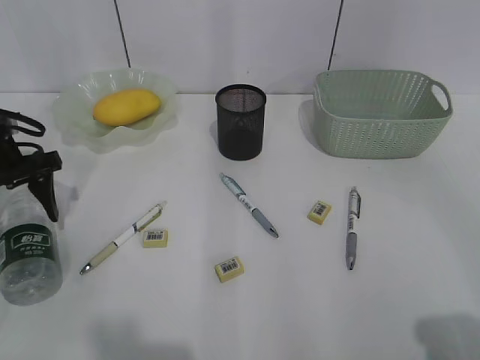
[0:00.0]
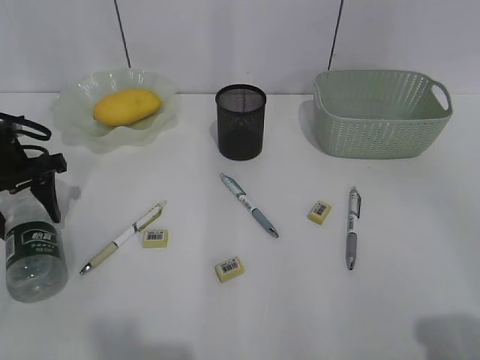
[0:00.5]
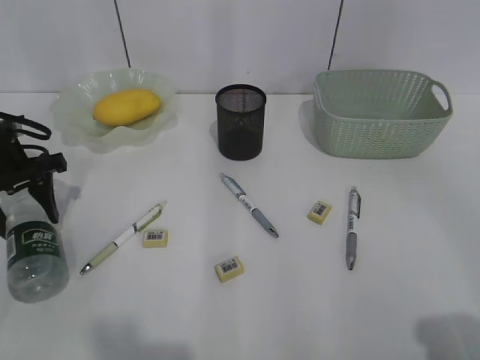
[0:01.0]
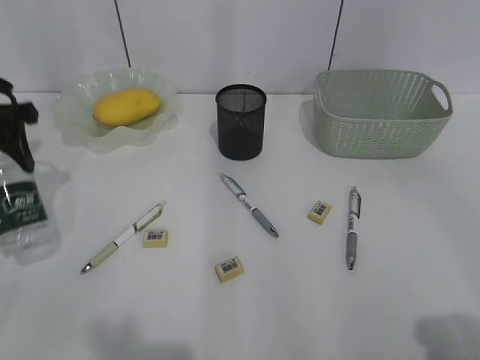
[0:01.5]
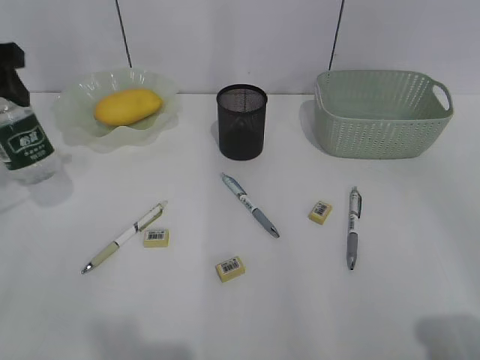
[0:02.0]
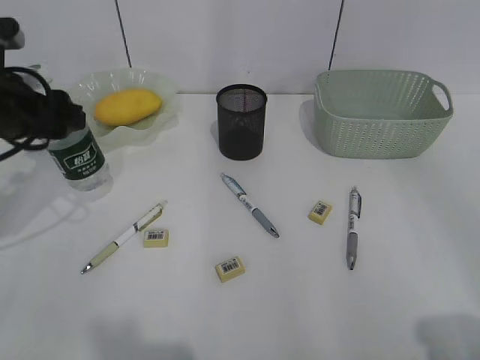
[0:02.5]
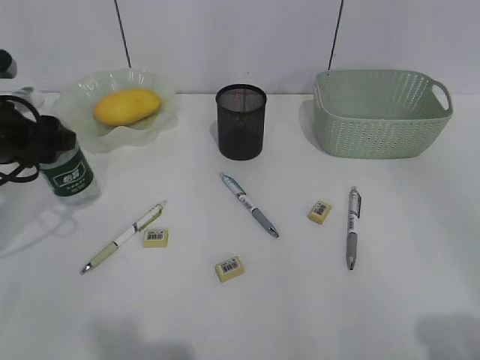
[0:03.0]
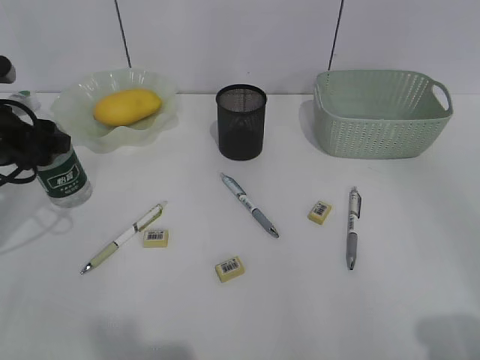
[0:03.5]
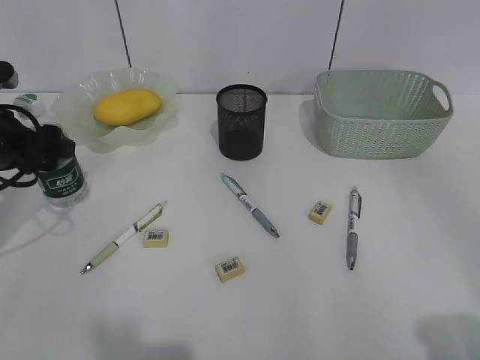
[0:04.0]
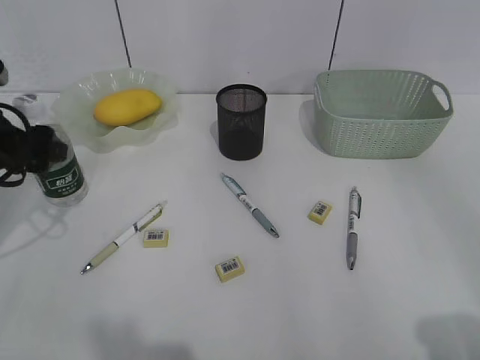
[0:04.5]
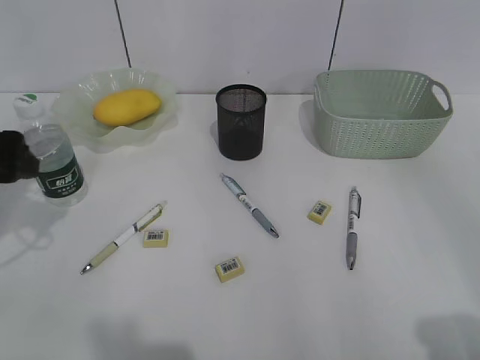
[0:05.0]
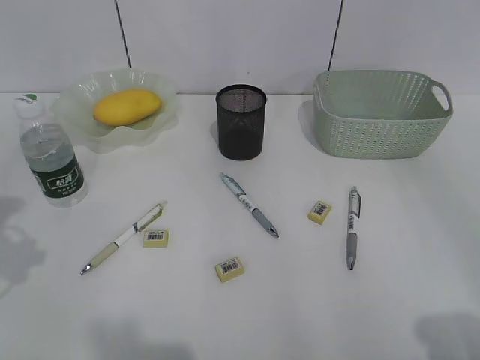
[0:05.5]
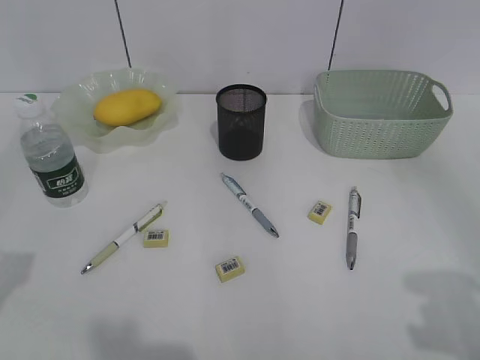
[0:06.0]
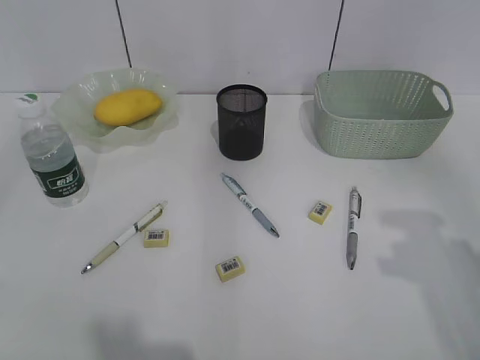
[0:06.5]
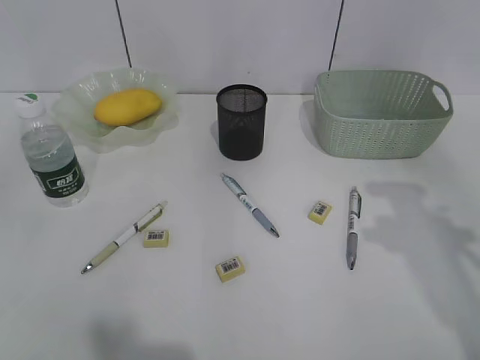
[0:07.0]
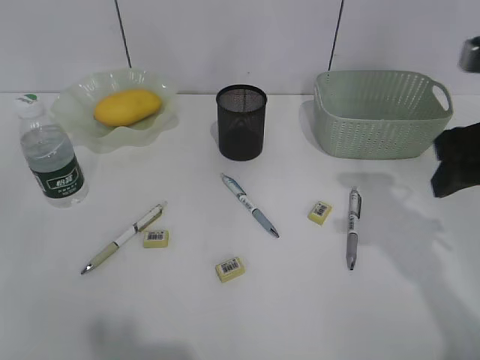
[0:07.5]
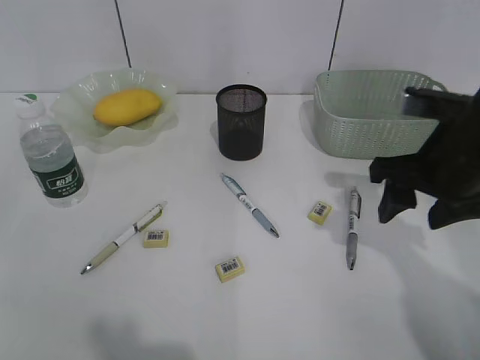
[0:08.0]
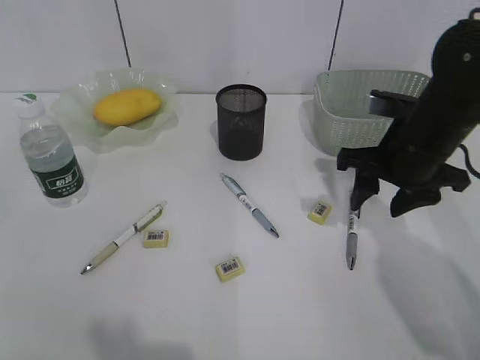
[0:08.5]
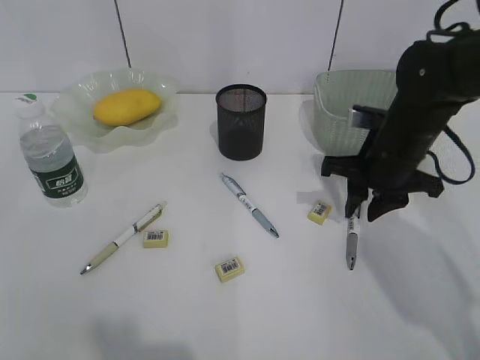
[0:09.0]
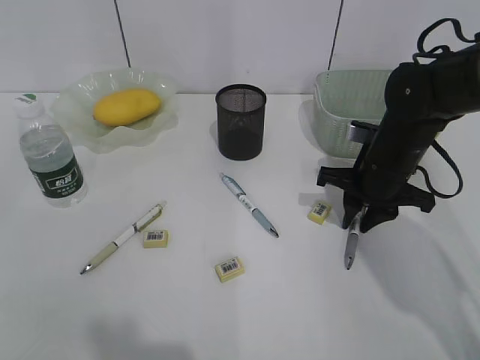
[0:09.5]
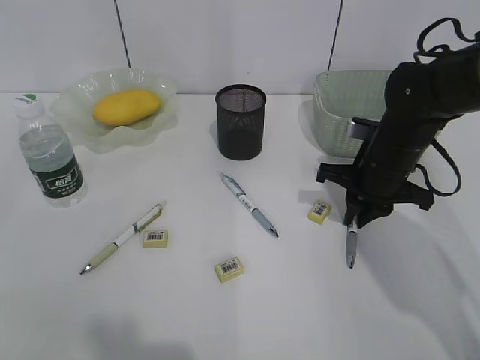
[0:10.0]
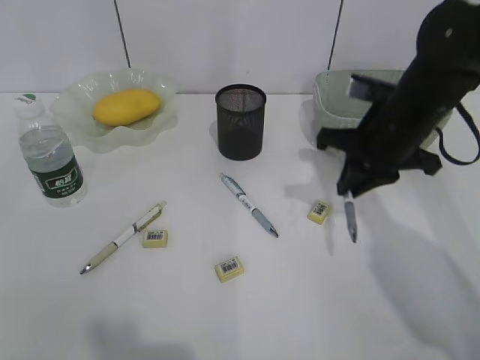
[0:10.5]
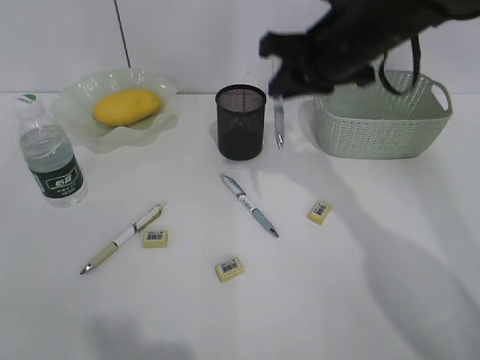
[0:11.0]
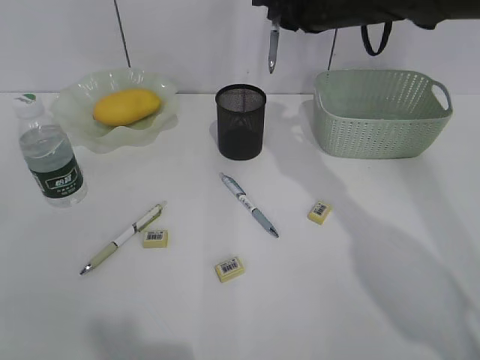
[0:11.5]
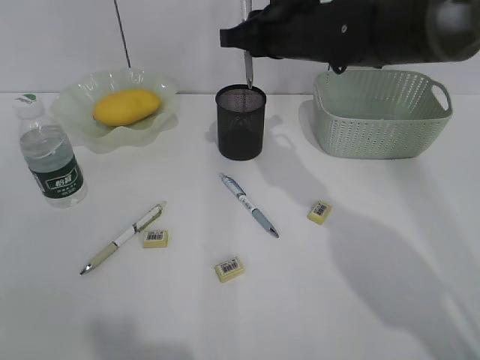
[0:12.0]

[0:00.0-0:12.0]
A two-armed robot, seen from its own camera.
Step, 0:01.0 to 0:04.5: Stand the bottle with left gripper.
Step, 0:05.0 to 0:09.5: Grasp the gray pen with right gripper.
0:00.0 to 0:02.0: The left gripper heads upward, covering roughly 10 cm.
0:02.0 to 0:04.0: The left gripper is displaced downward by about 10 cm.
0:04.0 to 0:06.0: The left gripper travels backward and upward by some 25 cm.
0:06.0 to 0:08.0: The right gripper heads forward, downward and to the left, covering approximately 25 cm.
0:08.0 to 0:10.0: The right gripper goes roughly 10 cm downward and forward, and closes.
0:10.0 to 0:12.0: The right gripper travels upward, to the left and forward by roughly 20 cm.

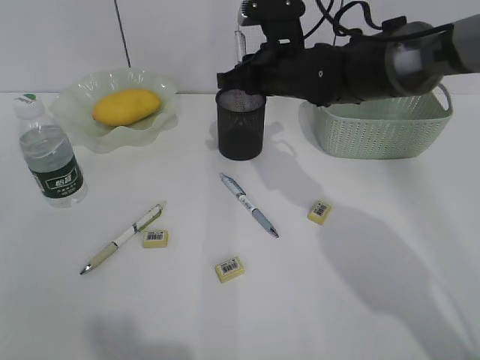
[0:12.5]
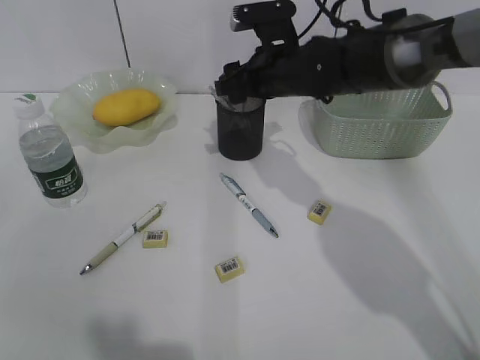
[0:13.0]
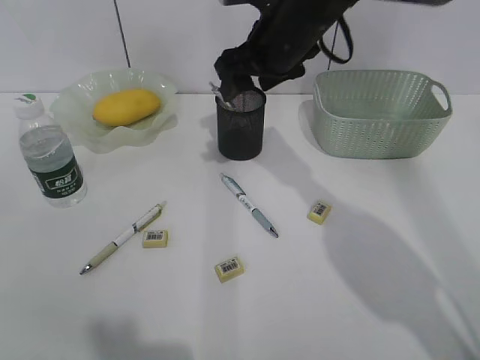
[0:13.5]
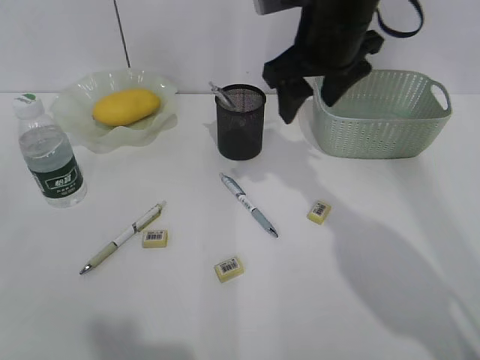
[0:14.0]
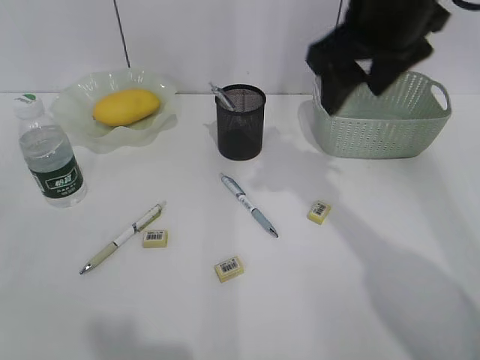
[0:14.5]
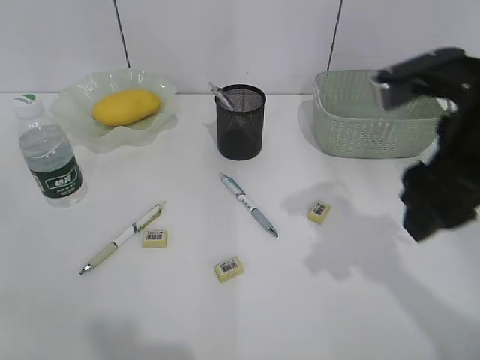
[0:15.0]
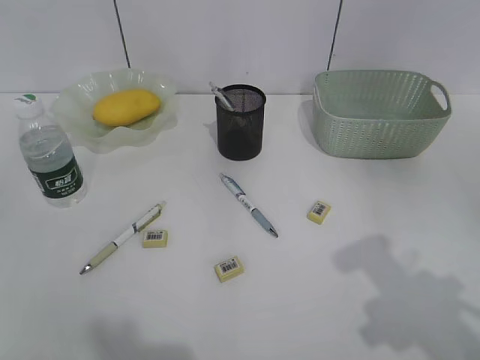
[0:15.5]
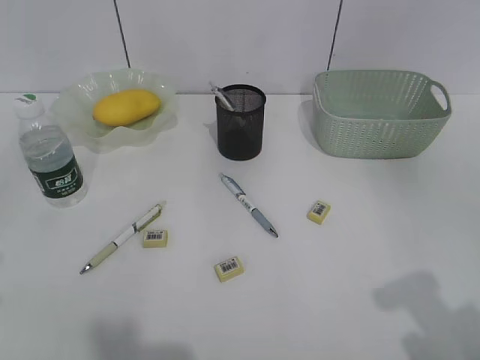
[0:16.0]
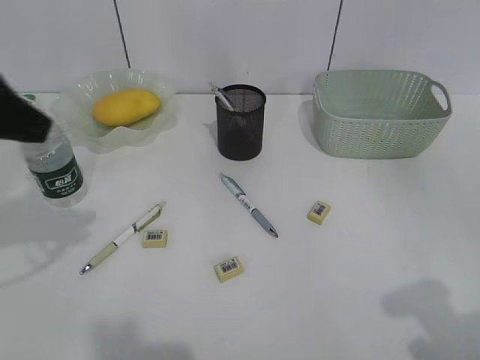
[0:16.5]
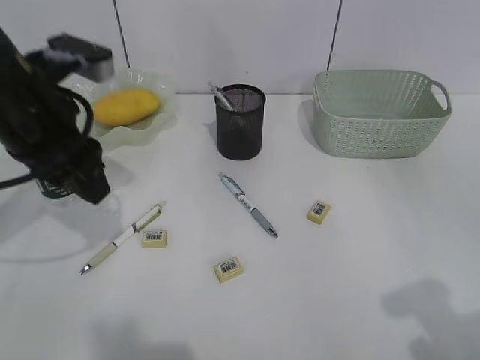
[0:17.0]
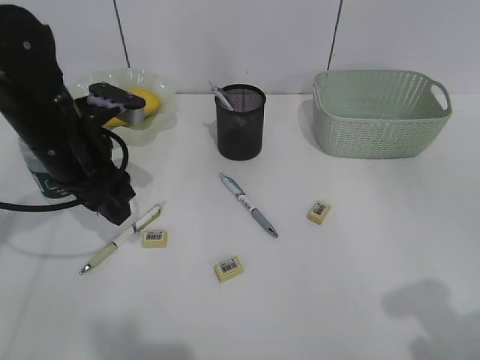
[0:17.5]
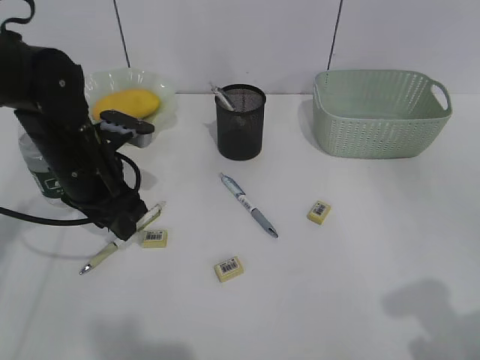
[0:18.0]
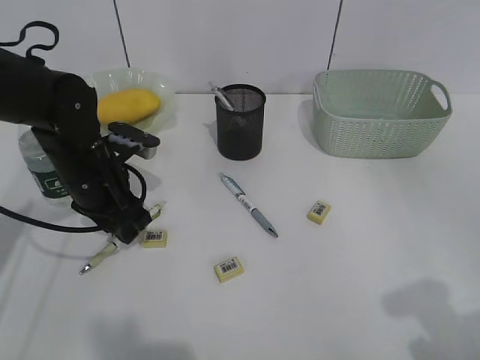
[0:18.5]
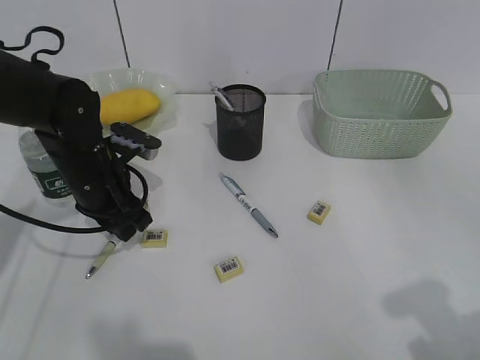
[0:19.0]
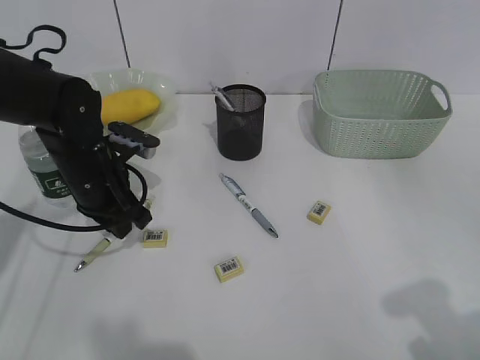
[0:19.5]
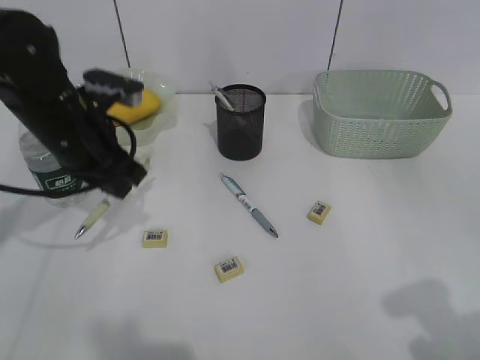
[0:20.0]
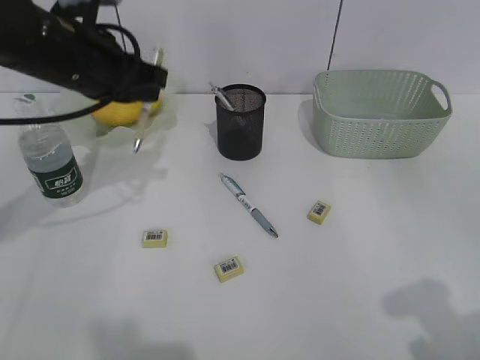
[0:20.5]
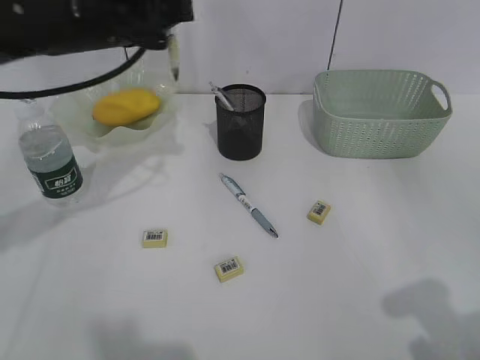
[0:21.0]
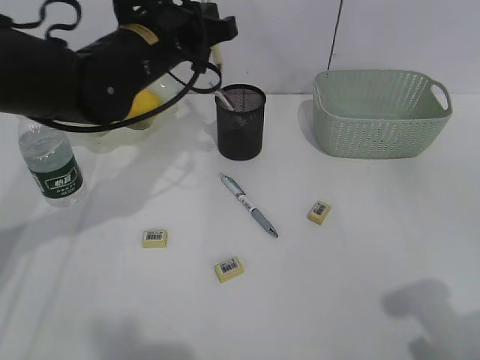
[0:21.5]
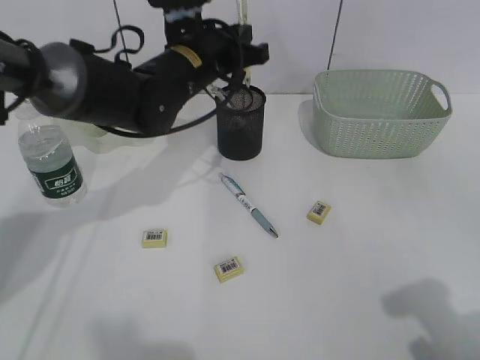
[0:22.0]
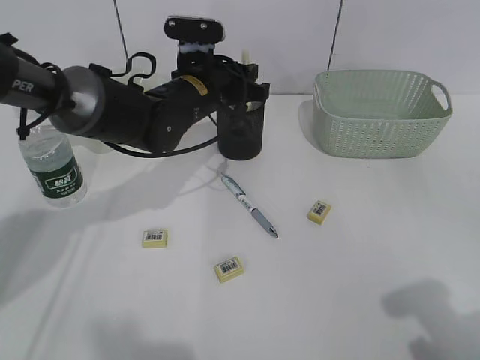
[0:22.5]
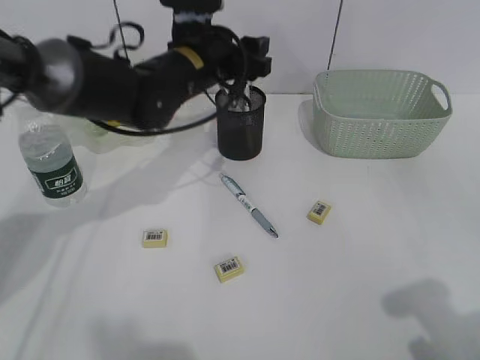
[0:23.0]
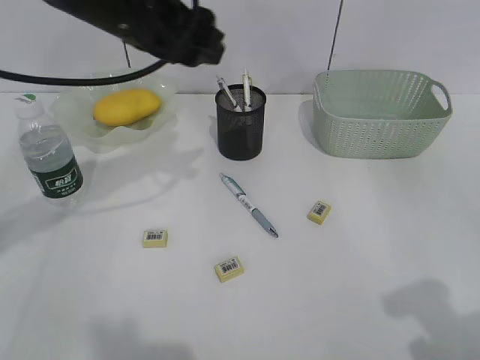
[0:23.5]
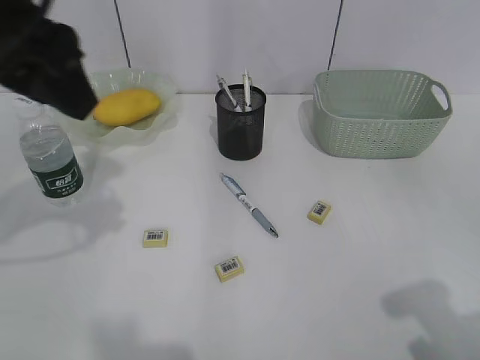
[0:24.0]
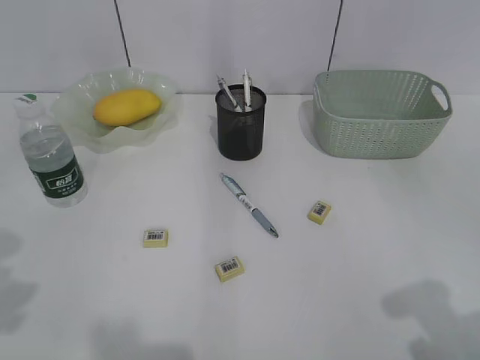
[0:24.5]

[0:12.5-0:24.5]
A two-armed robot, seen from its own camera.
Step, 0:13.5 to 0:19.5: Grasp the yellow pen with left gripper.
Step, 0:20.0 to 0:22.5: Place the yellow pen in pen holder with left gripper.
0:12.5 to 0:14.5: The right gripper is displaced upward and backward by about 15 cm, and opens.
0:14.5 to 0:16.5: The right gripper is displaced backward and to the right by about 30 cm, while the left gripper shifts approximately 20 cm forward and to the right.
0:16.5 to 0:18.5: The left gripper goes roughly 25 cm downward and forward.
0:18.5 to 0:20.5: The left gripper travels upward by about 15 cm, and closes its fingers.
0:20.5 to 0:22.5: The left gripper shifts roughly 15 cm to the right, downward and forward, and opens up.
0:22.5 to 0:24.5: The left gripper travels backward, to the left and upward by roughly 40 cm.

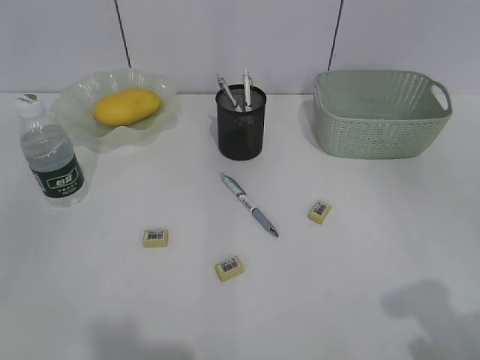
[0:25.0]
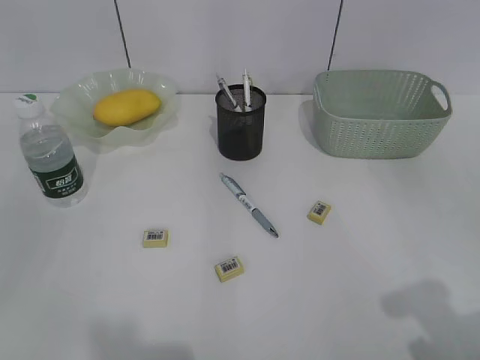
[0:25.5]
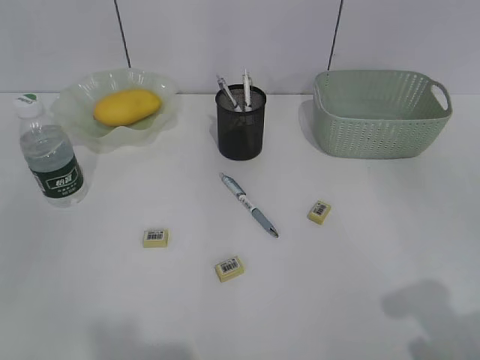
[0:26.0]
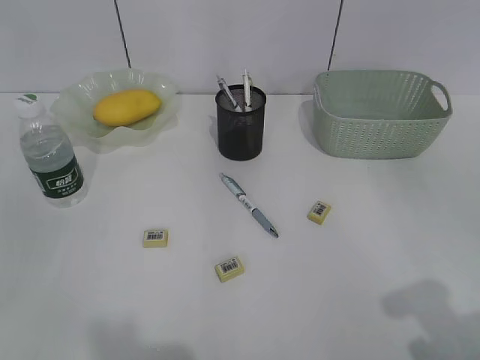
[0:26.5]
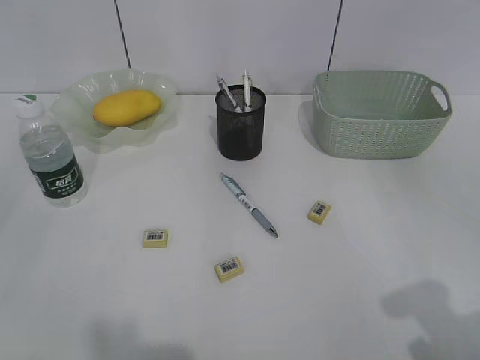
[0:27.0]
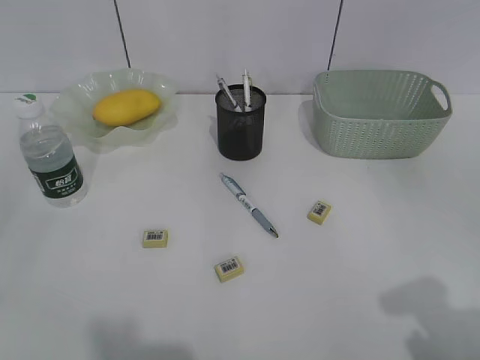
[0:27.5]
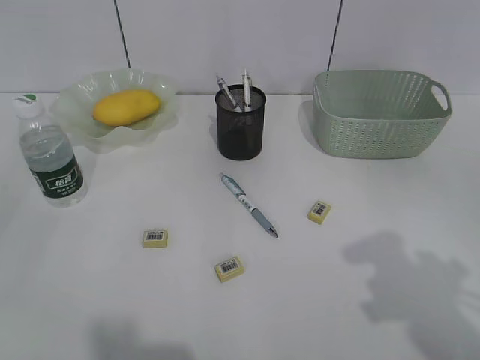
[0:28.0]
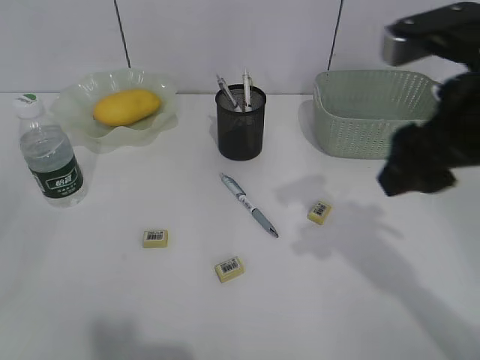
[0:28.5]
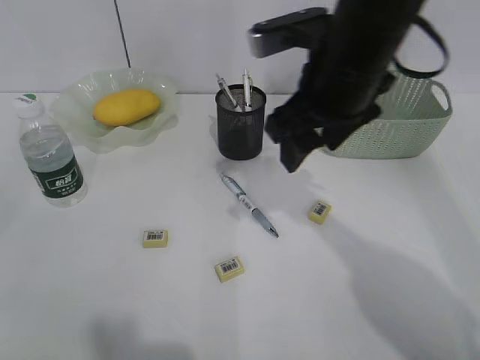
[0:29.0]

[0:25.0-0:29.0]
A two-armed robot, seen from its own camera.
0:27.0 to 0:29.0: The right gripper moves forward and to the left, about 30 cm.
